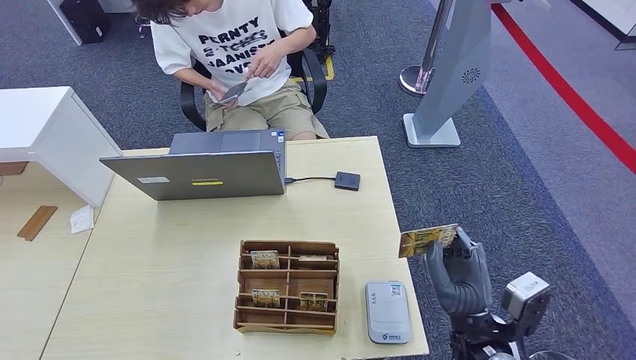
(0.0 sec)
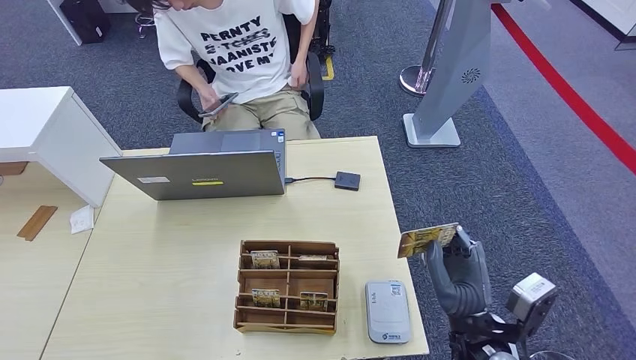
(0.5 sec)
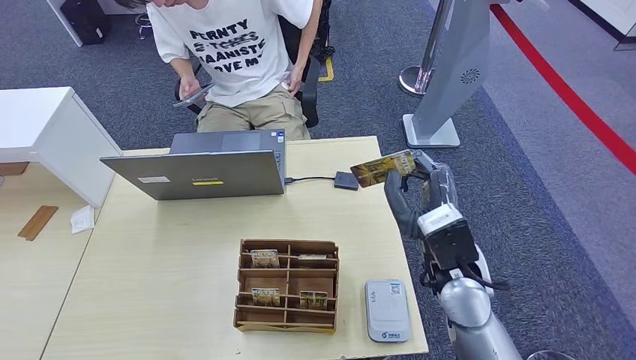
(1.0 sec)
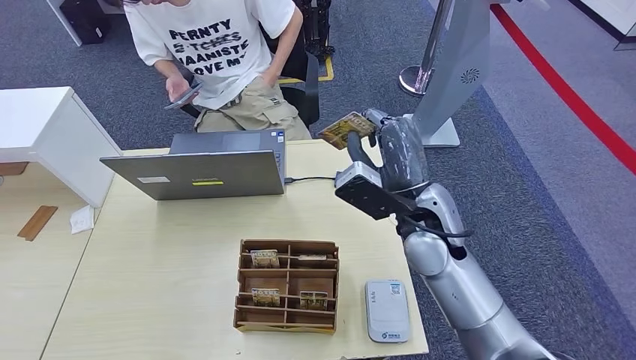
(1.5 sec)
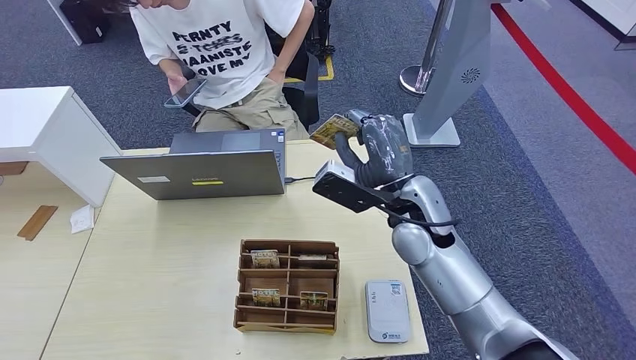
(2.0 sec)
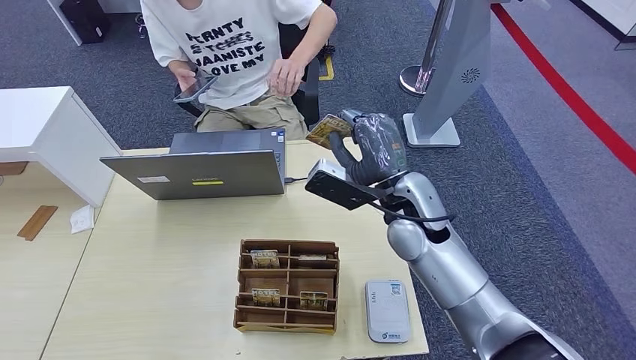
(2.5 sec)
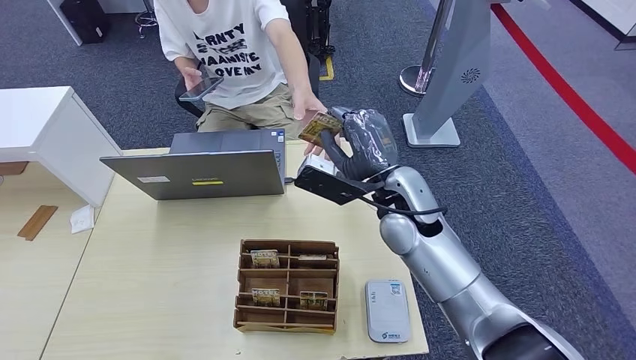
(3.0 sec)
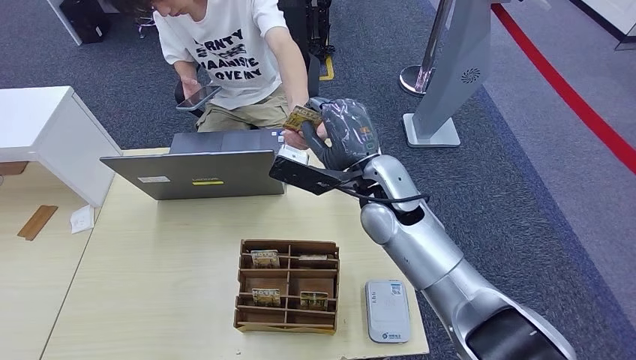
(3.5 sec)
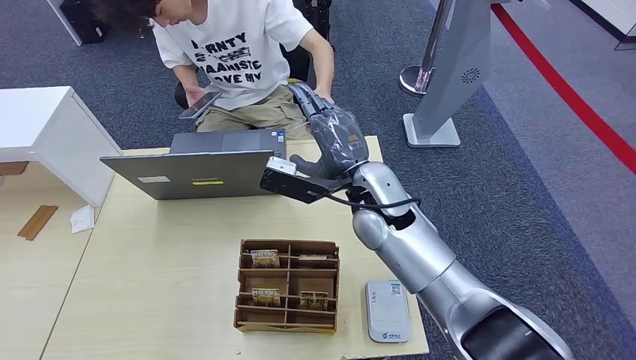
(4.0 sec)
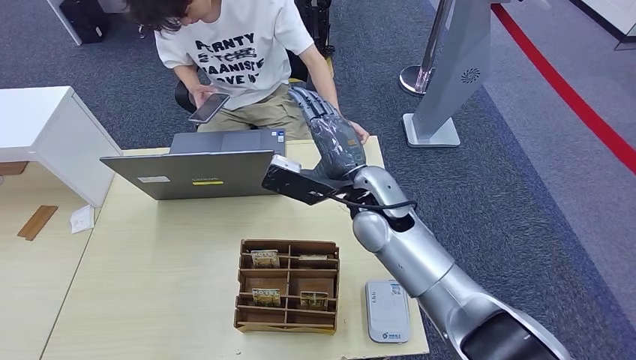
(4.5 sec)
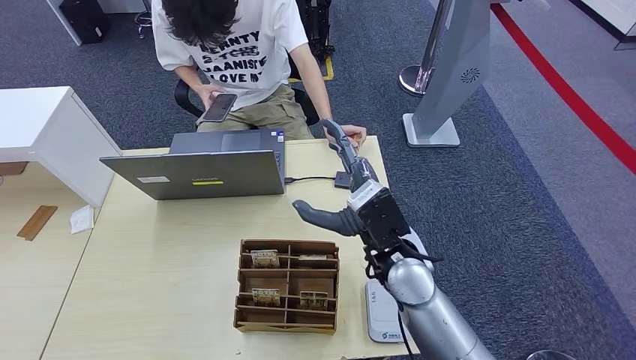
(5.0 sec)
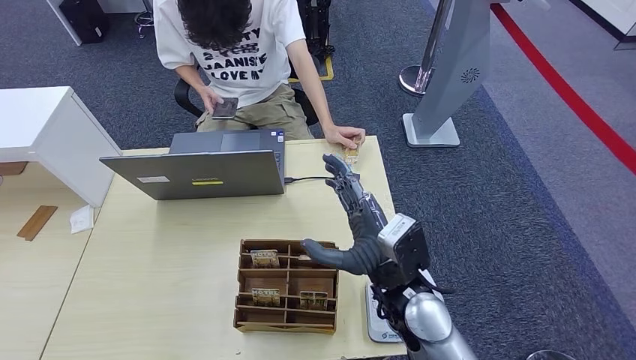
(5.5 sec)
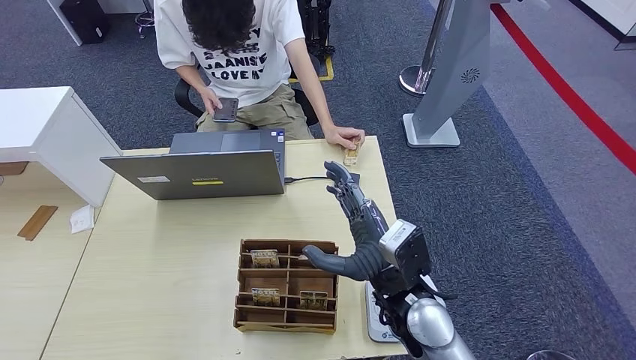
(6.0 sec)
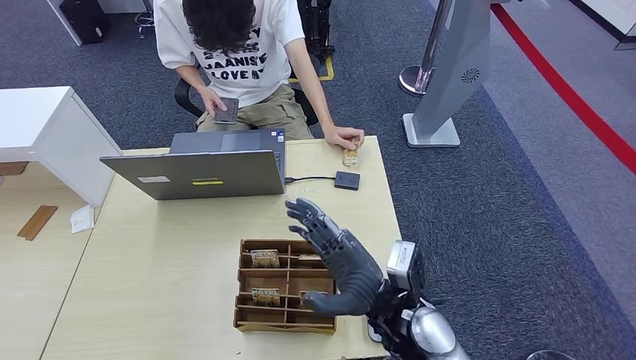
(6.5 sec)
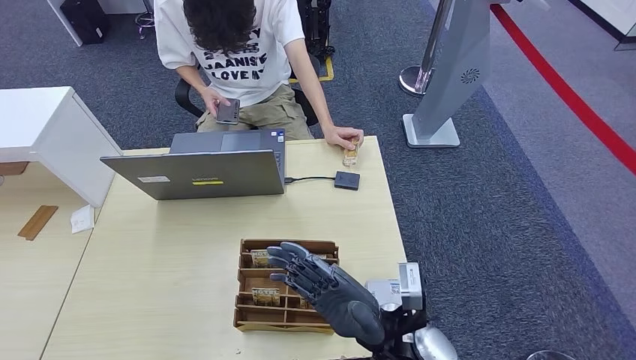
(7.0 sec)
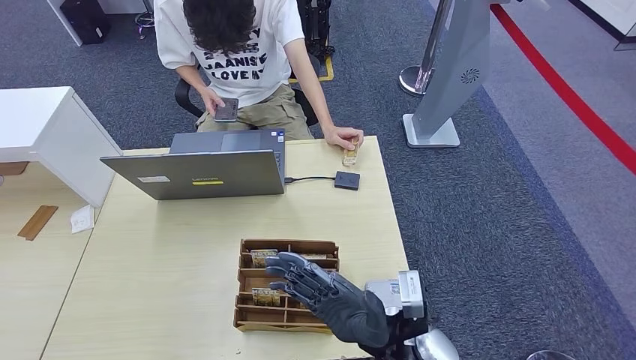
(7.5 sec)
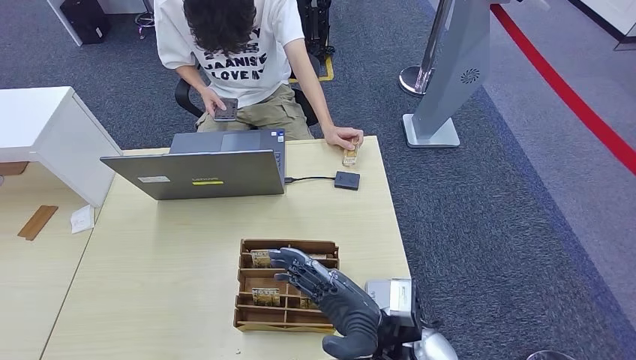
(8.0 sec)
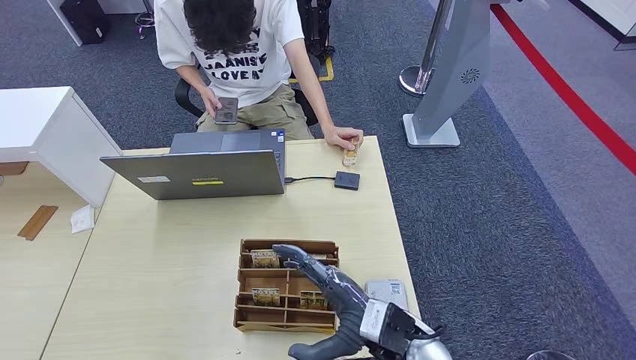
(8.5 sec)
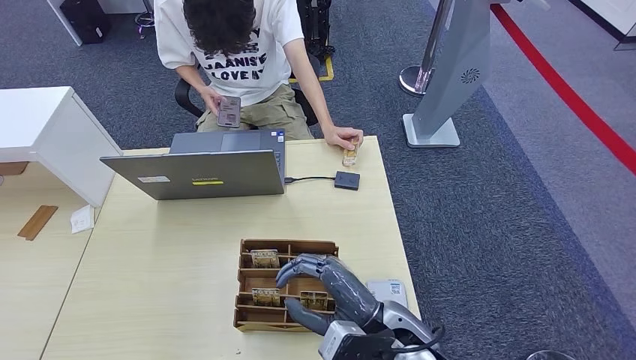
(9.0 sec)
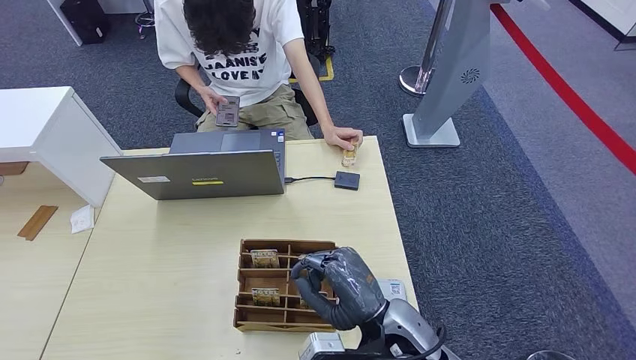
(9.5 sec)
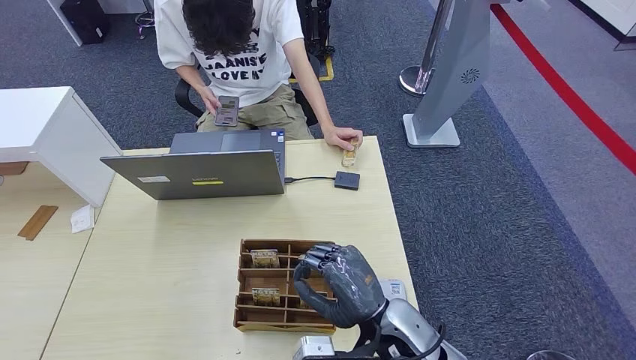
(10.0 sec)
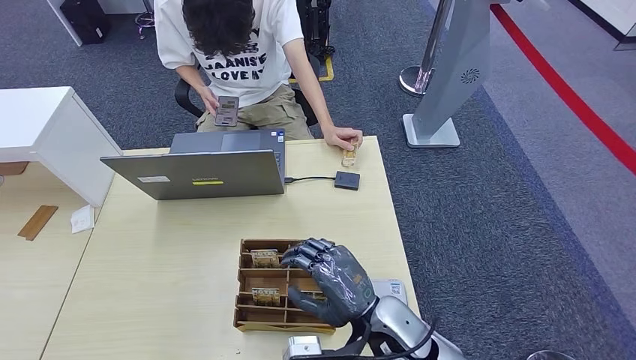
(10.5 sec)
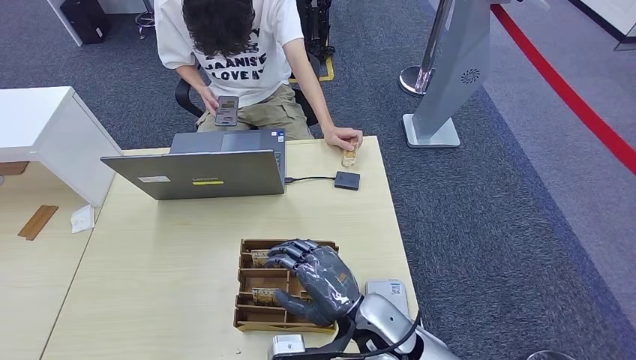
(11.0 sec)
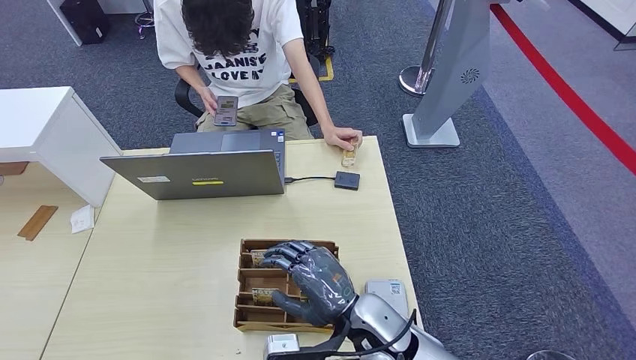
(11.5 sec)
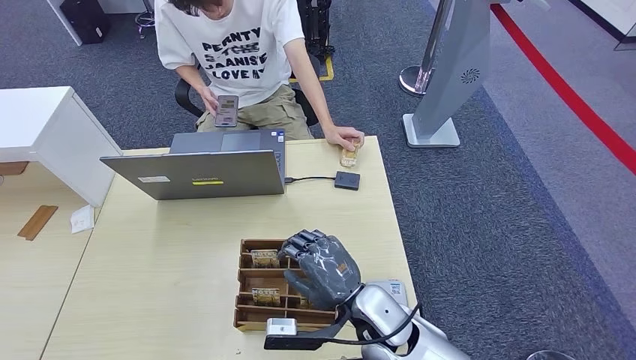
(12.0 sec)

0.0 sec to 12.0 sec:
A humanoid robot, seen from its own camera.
Step, 0.0 sec to 3.0 sec: Hand the ID card to the person.
0.0 sec to 2.0 sec: The right hand goes about 20 cm forward, upward and to the left.
2.0 sec to 4.0 sec: The right hand moves to the left, roughly 5 cm.
4.0 sec to 6.0 sec: The right hand travels backward and downward by some 15 cm.
6.0 sec to 8.0 sec: The right hand changes place by about 5 cm.
10.0 sec to 12.0 sec: There are only small adjustments of the hands.

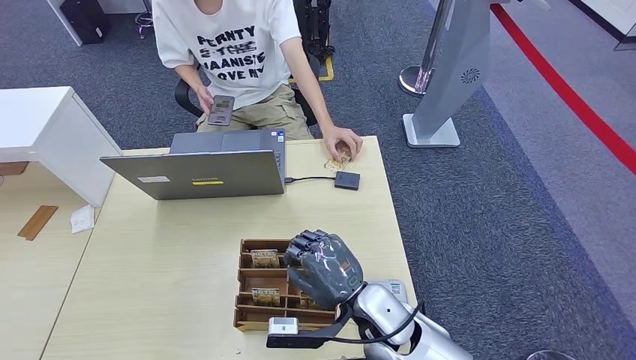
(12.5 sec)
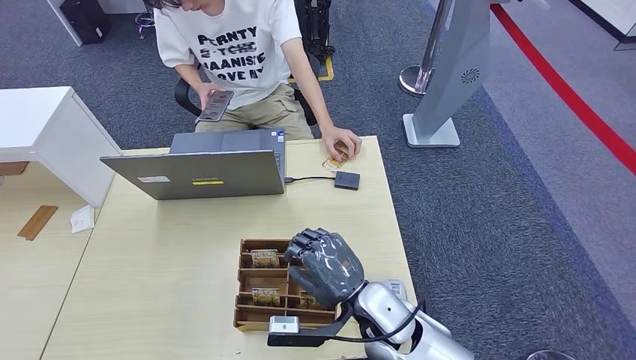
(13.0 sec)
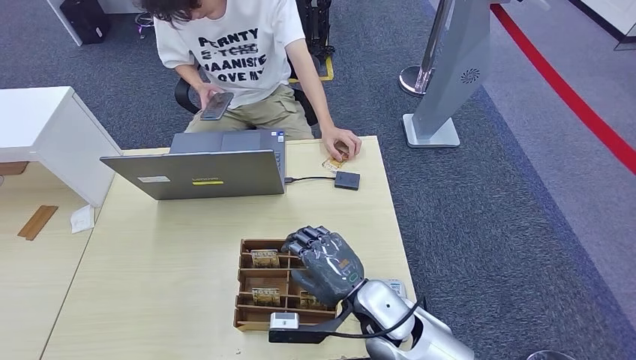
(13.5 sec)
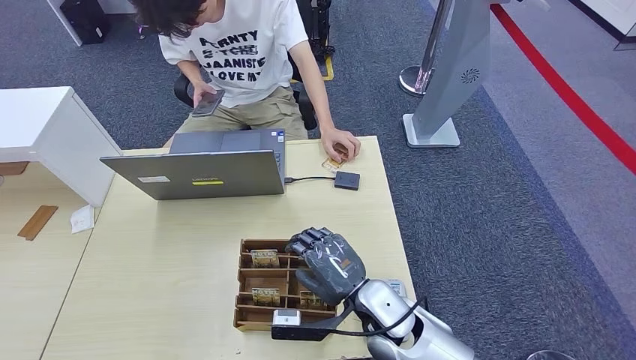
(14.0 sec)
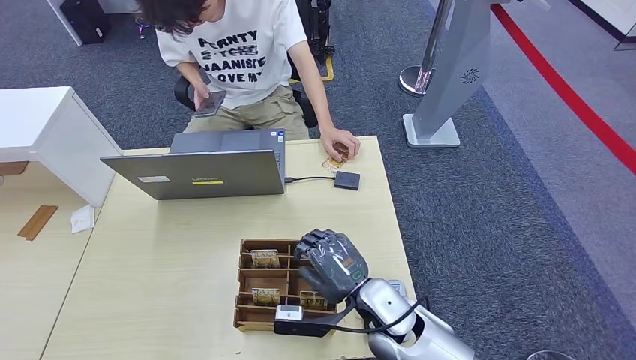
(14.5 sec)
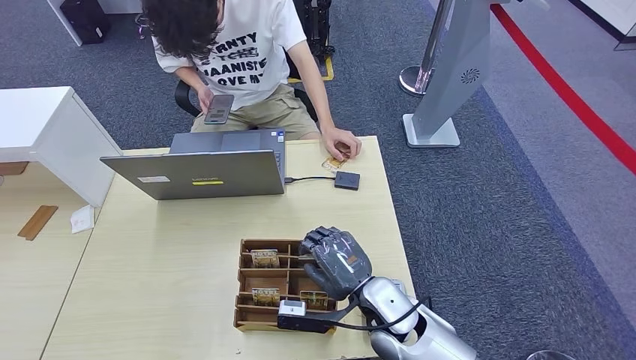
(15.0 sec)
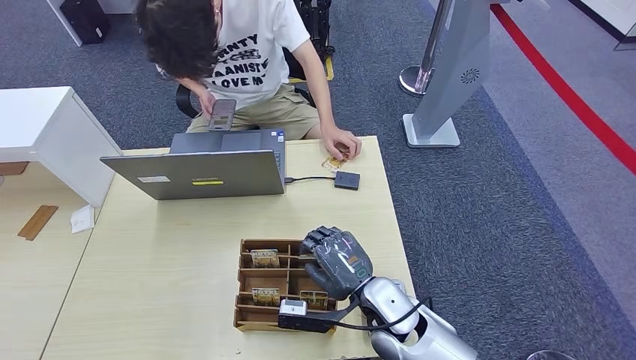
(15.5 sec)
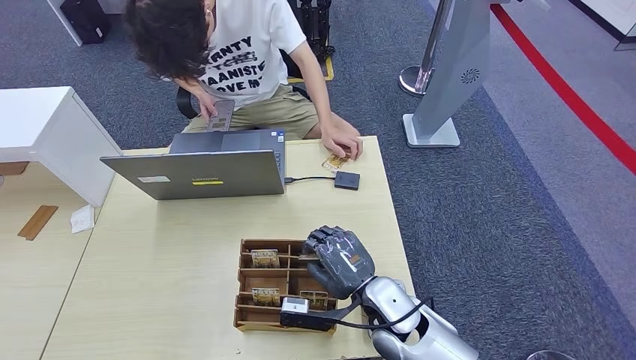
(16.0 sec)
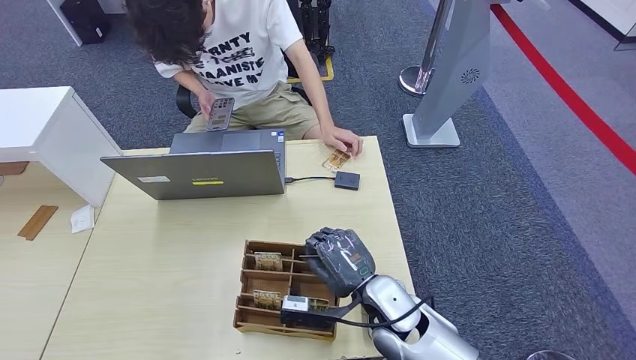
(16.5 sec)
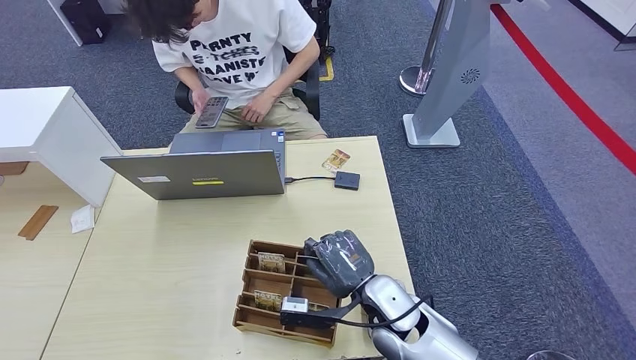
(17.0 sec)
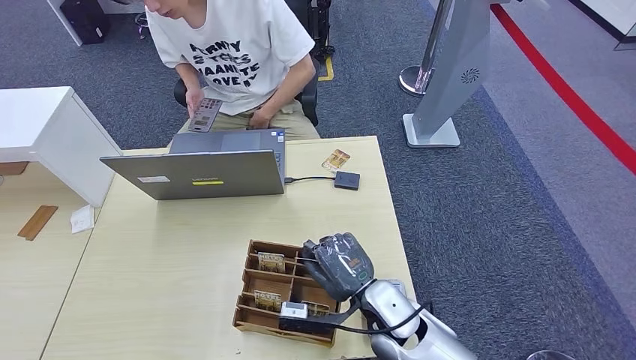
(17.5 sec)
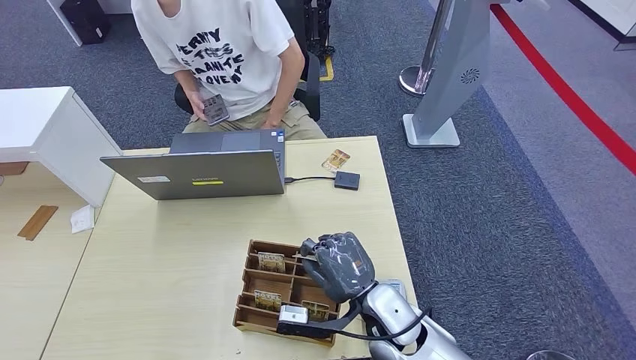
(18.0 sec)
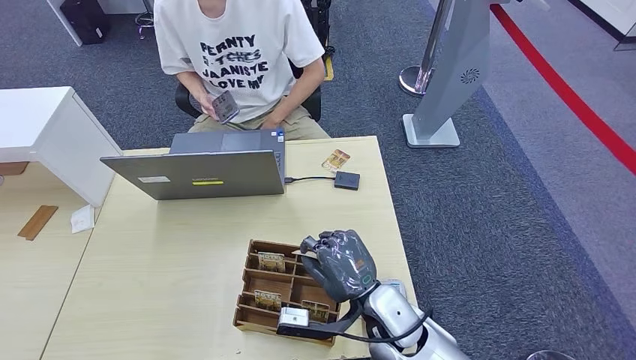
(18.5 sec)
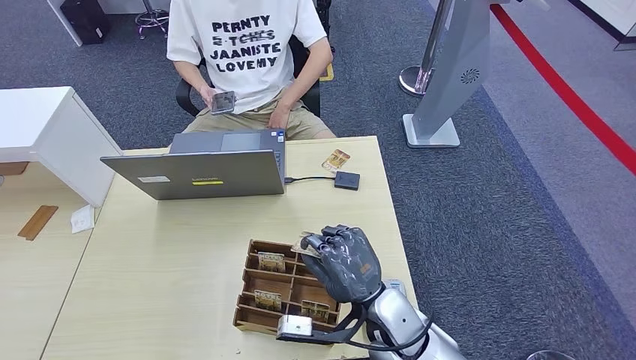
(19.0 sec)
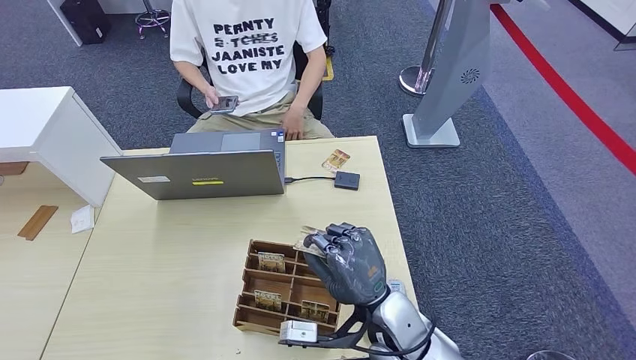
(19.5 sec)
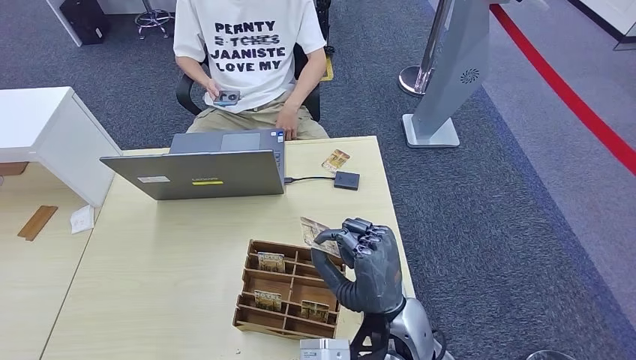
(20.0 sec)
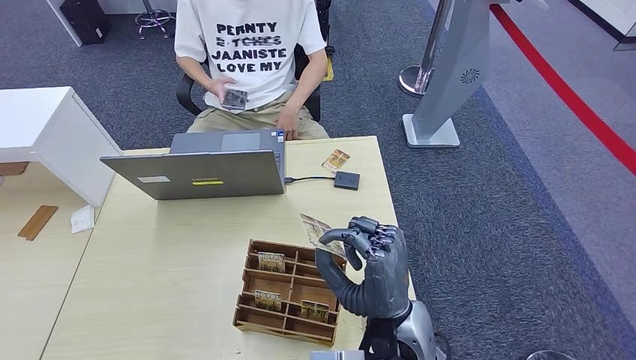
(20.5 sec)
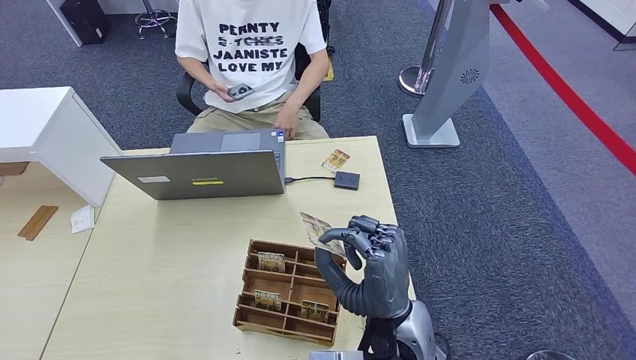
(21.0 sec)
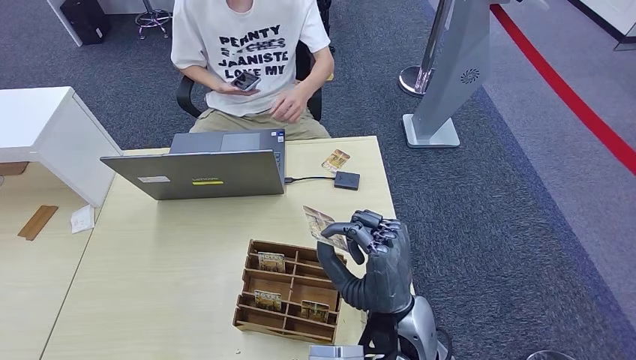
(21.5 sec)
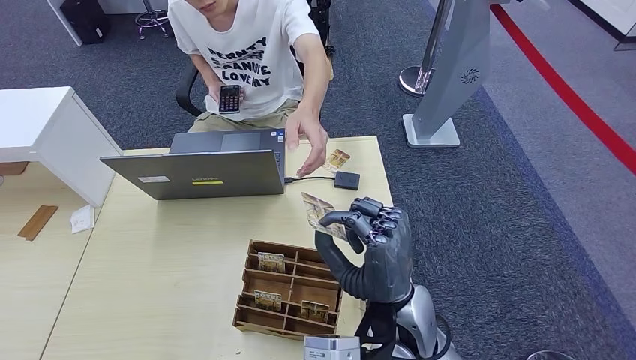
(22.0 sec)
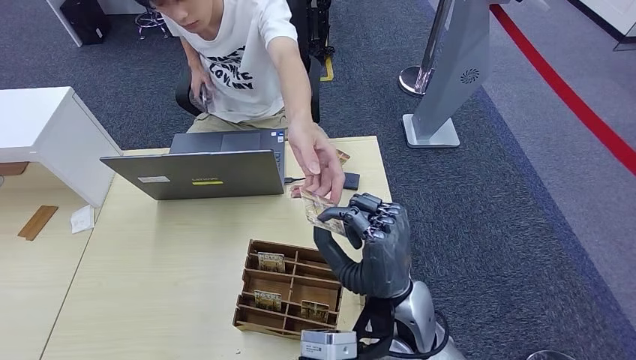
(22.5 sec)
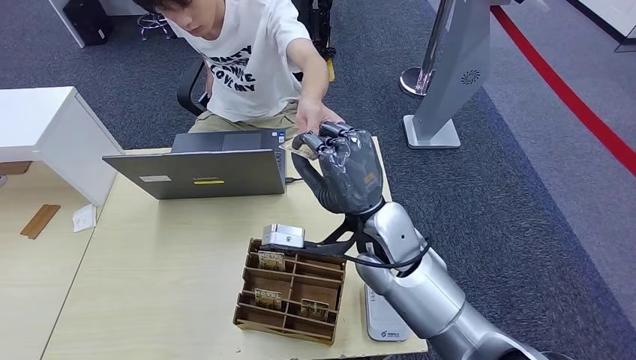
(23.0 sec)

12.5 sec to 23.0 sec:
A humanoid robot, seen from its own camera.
Step, 12.5 sec to 17.5 sec: Pick up the room key from the key card box.
Step, 18.0 sec to 23.0 sec: Hand the room key to the person.
12.5 sec to 14.5 sec: The hands make only small movements.
14.5 sec to 16.5 sec: Both hands stay about where they are.
19.0 sec to 21.0 sec: The right hand travels upward by about 5 cm.
